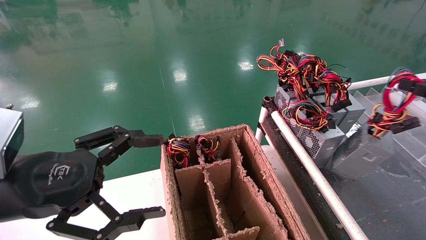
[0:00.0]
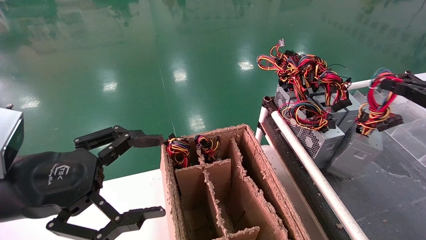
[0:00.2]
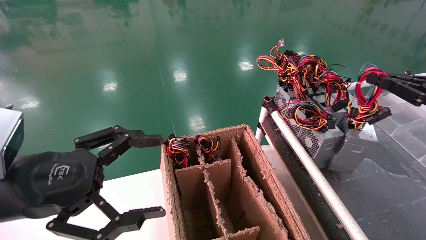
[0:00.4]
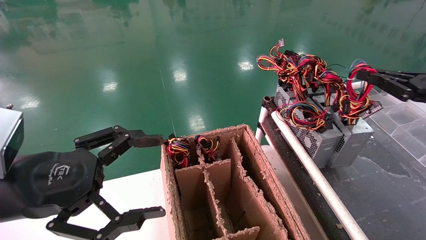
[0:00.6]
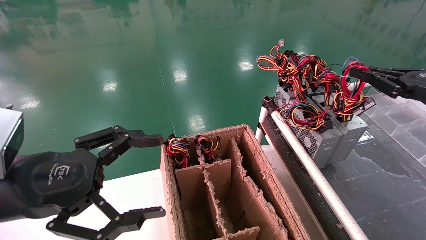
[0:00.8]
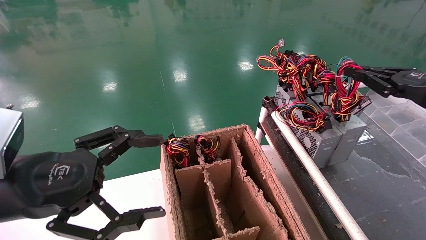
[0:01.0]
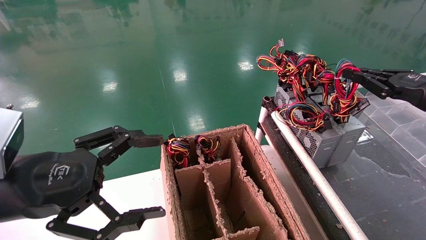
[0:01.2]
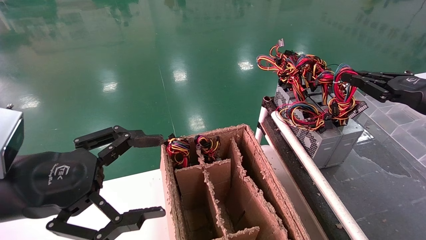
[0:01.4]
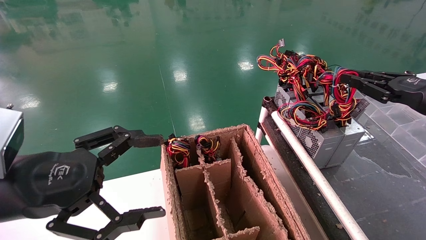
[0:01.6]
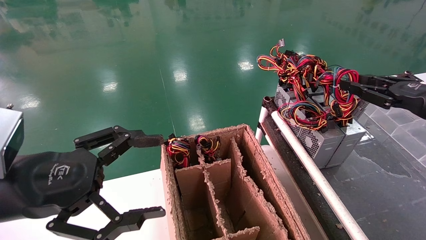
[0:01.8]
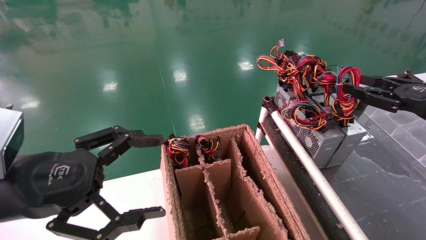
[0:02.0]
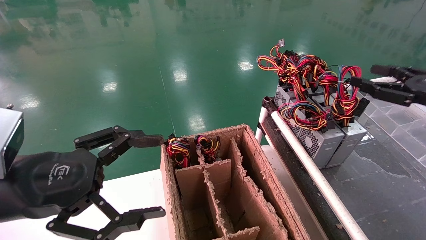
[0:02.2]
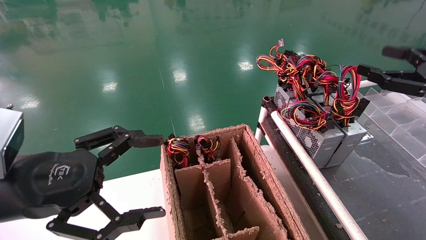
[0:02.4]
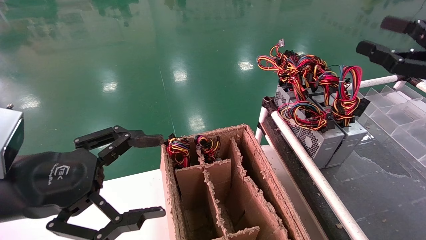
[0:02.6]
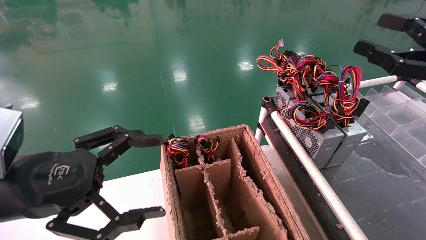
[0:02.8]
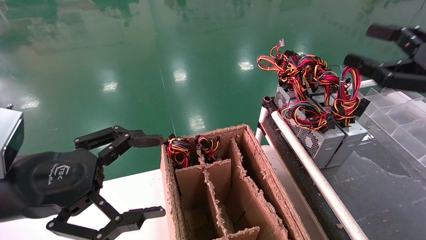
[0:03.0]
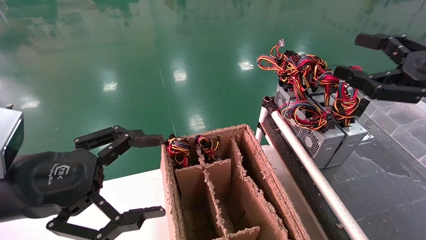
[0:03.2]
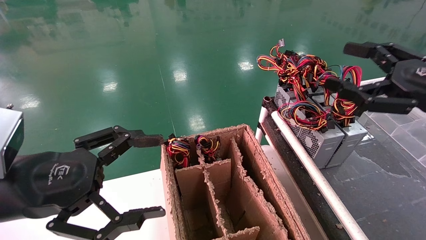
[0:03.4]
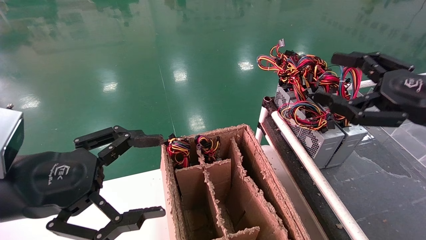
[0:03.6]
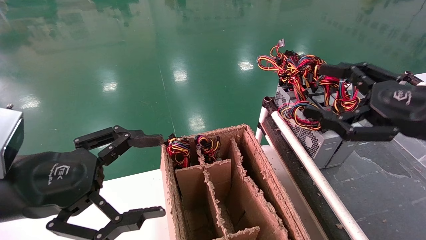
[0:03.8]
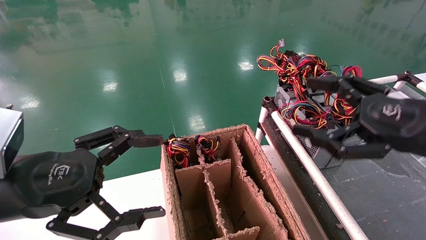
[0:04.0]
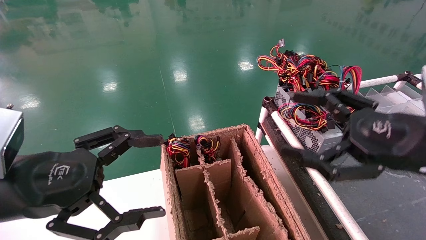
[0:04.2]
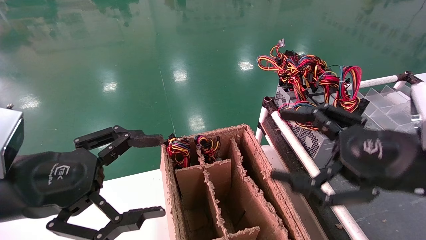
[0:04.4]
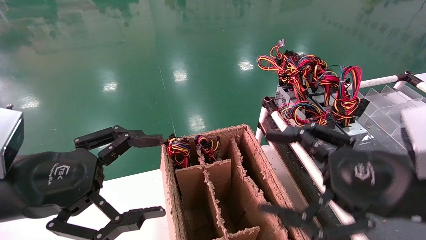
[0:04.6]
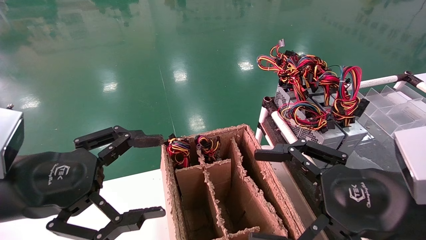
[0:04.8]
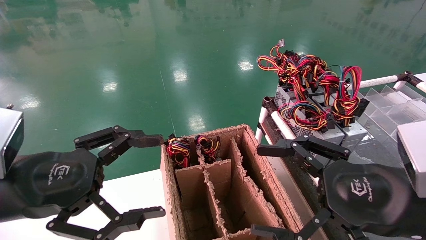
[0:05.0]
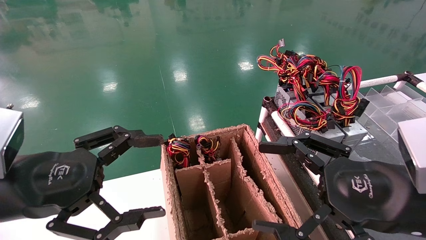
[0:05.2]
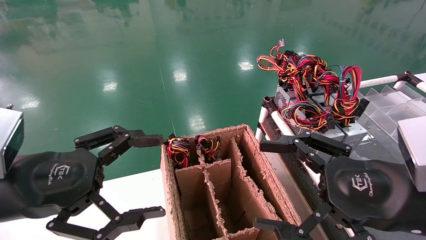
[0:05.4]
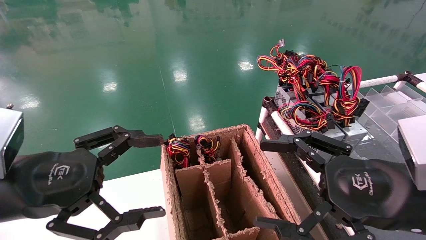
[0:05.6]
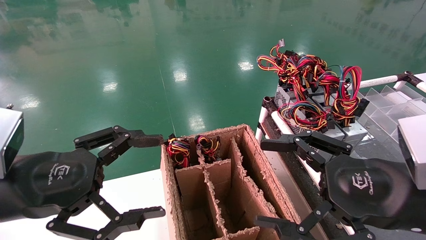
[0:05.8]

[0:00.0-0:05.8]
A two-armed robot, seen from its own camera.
0:00.0 to 0:01.4: The right gripper shifts roughly 10 cm forward and to the left.
0:01.4 to 0:02.8: The right gripper moves backward, approximately 5 cm, and opens up.
0:02.8 to 0:04.4: The right gripper is displaced to the left, downward and backward by approximately 15 cm.
0:04.4 to 0:05.8: The grippers stay close to where they were, moving slightly.
